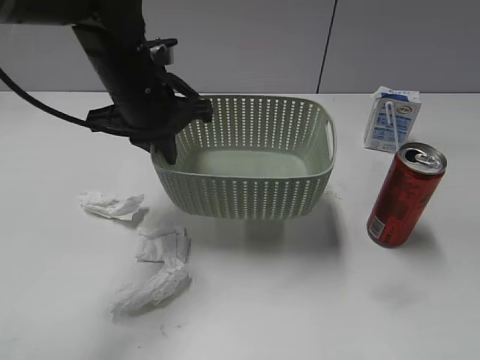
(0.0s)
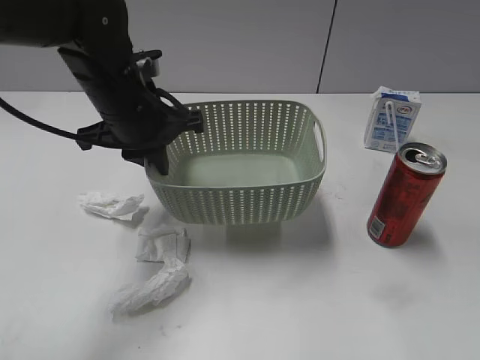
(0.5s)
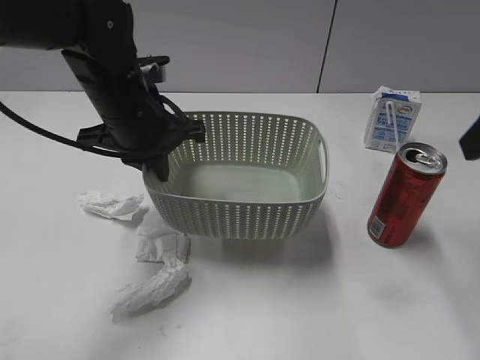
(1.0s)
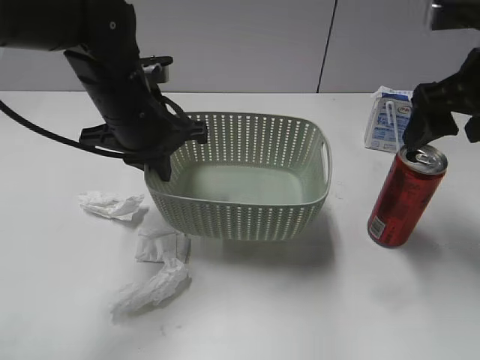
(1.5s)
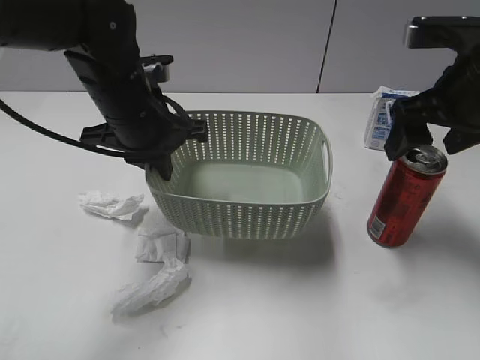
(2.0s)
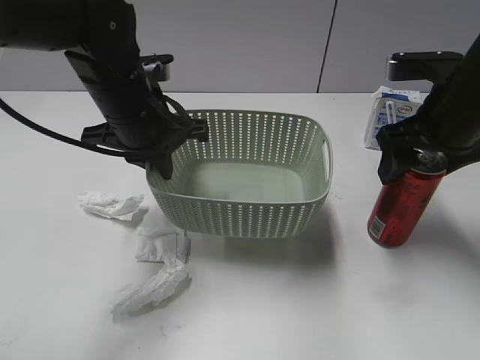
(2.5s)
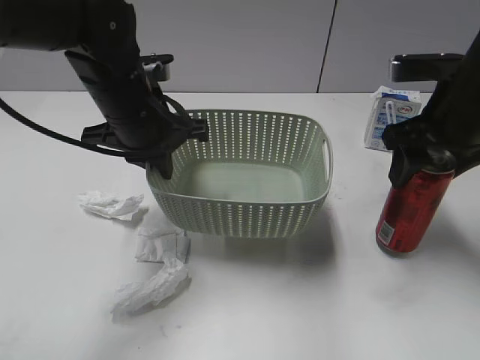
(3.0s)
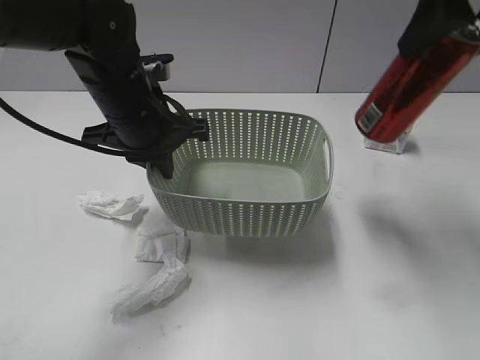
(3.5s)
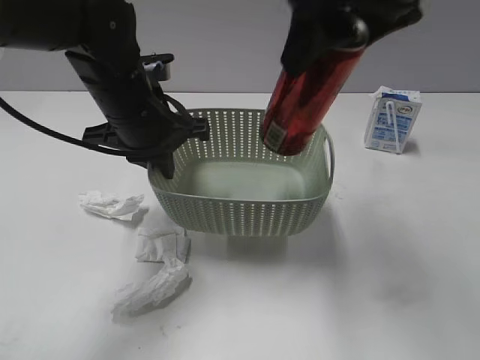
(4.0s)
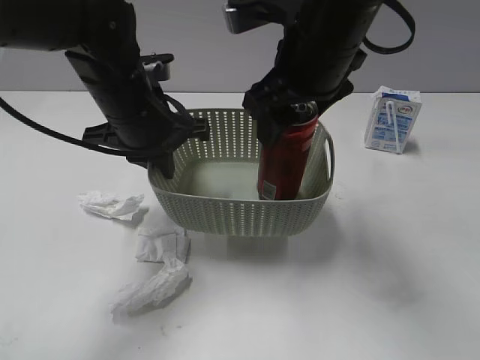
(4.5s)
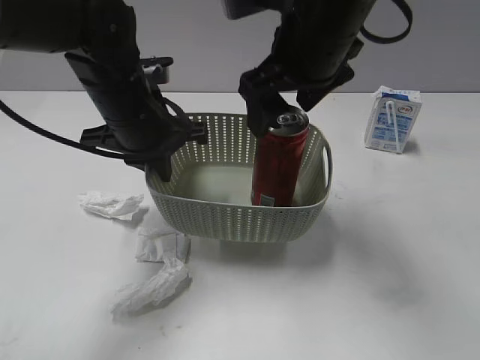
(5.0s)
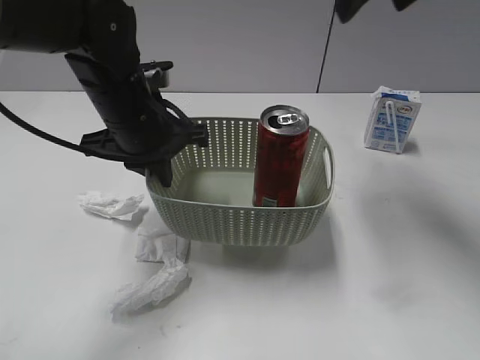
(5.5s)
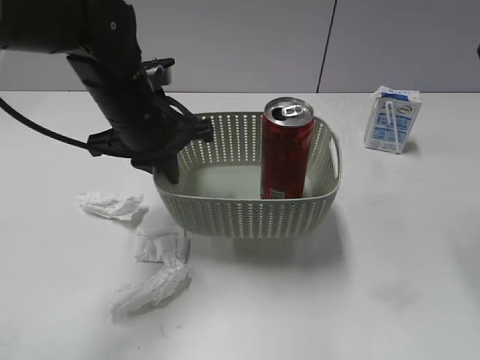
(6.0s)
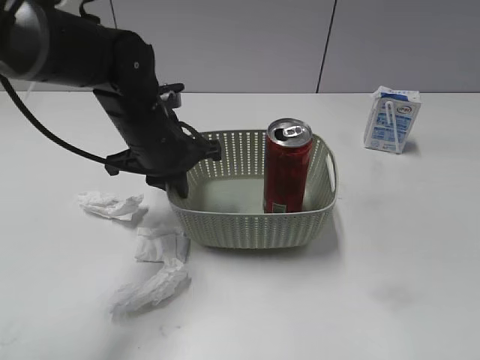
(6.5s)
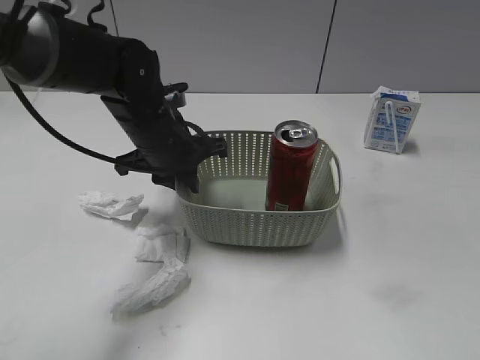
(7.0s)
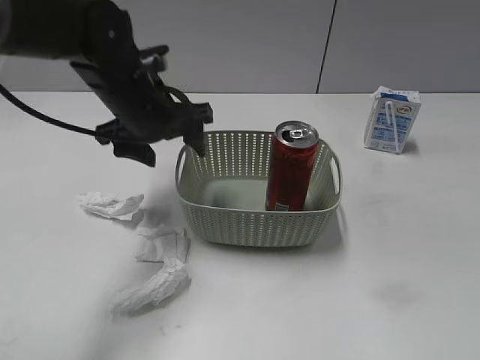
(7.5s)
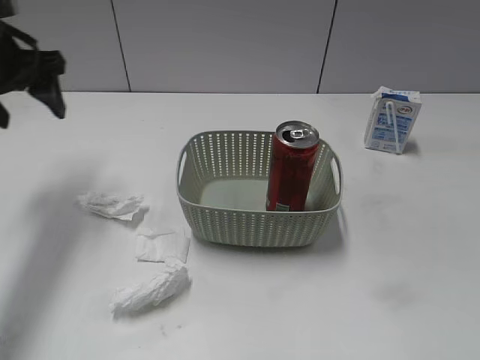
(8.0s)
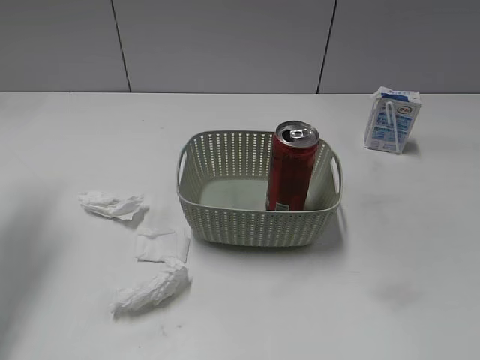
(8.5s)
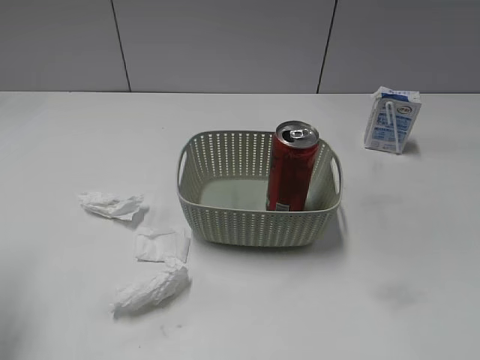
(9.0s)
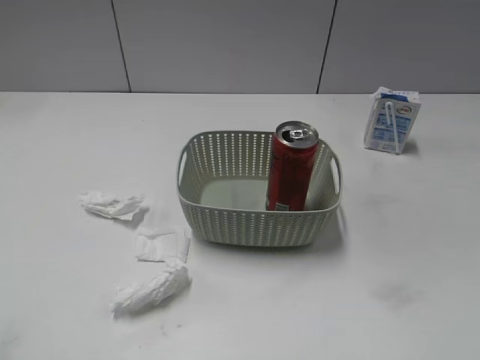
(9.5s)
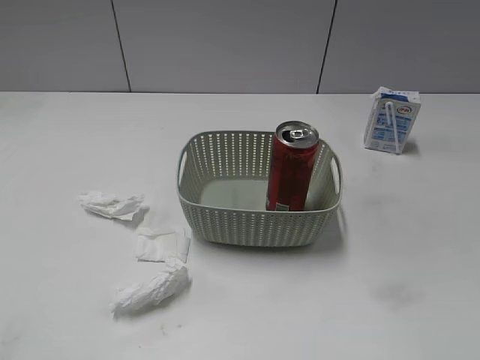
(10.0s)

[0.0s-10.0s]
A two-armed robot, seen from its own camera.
Step, 1.0s to 2.5s: Grasp the cola can with right gripper.
Step, 3.0s to 5.0s: Place the cola can in the basket with right gripper.
0.0s to 2.0s: The right gripper shifts about 30 cm forward, and opens its fingers.
2.0s to 4.0s: The right gripper is displaced to the left and upward by approximately 15 cm, and closes its fingers.
4.0s to 6.0s: The right gripper shifts roughly 15 cm to the right, and opens.
6.0s to 8.0s: The right gripper heads backward and downward, covering some 25 cm; the left gripper travels to the left by roughly 15 cm, and opens.
8.0s to 10.0s: The left gripper moves backward, about 35 cm.

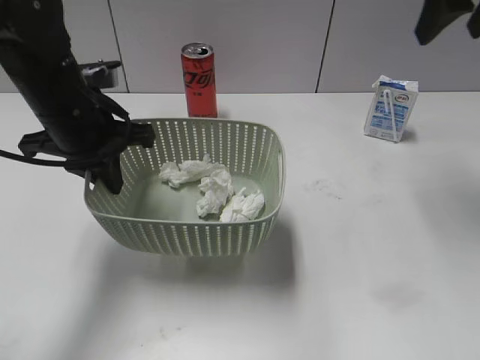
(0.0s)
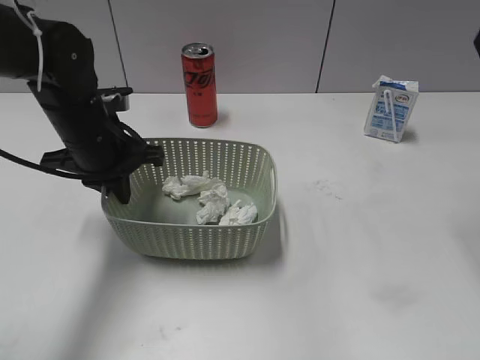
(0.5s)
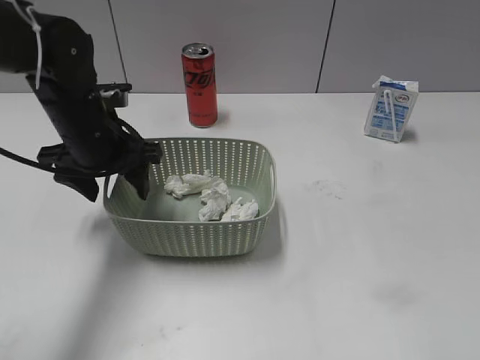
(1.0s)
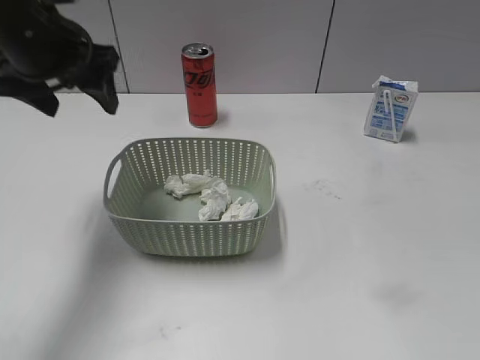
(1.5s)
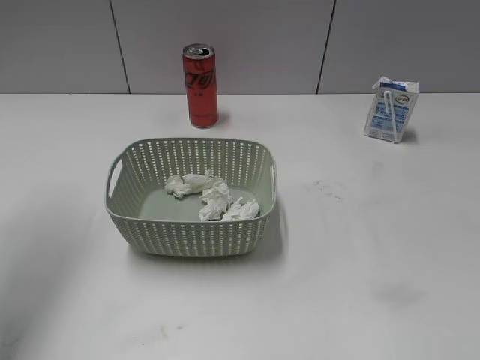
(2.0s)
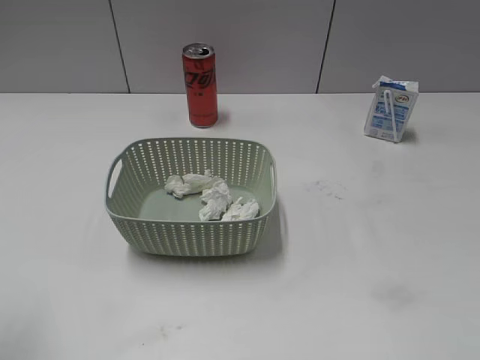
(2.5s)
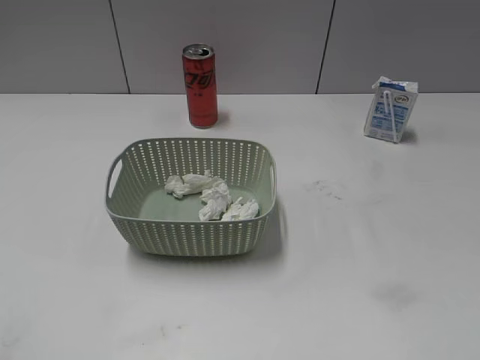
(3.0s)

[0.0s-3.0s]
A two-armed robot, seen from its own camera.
Step, 0.0s to 1.0s: Place the basket on the table with left gripper.
0.0s to 1.5s: The left gripper travels upward by about 5 cm, and opens its fingers. Meanwhile the right gripper goes approximately 35 cm backward.
1.5s to 3.0s: The left gripper goes some 35 cm backward.
